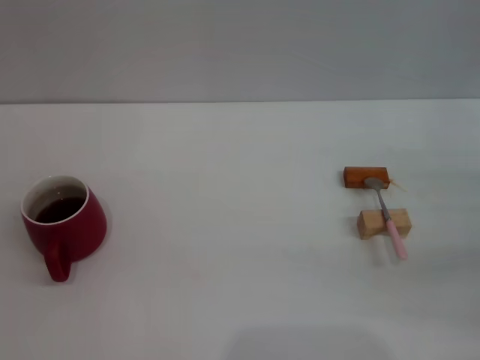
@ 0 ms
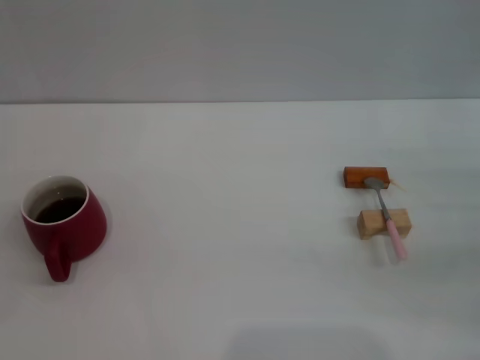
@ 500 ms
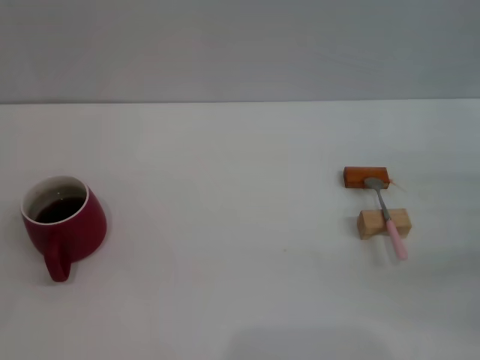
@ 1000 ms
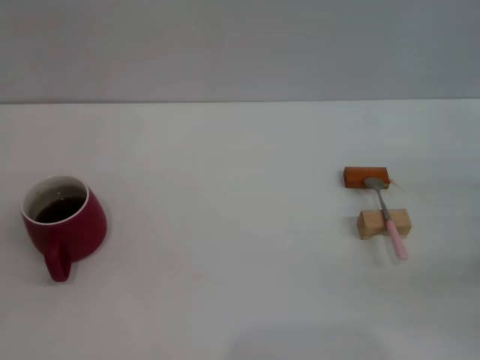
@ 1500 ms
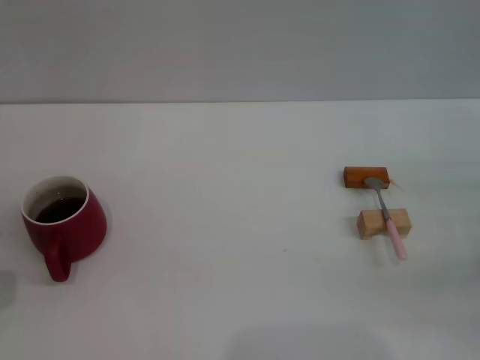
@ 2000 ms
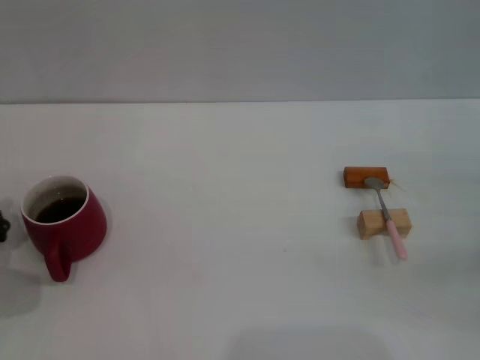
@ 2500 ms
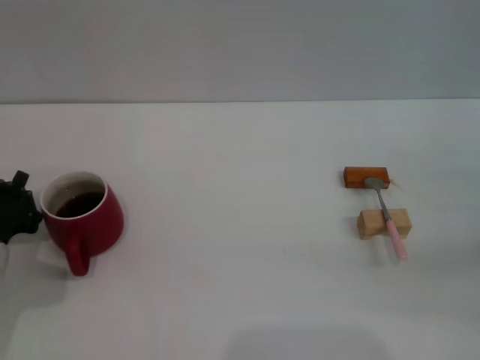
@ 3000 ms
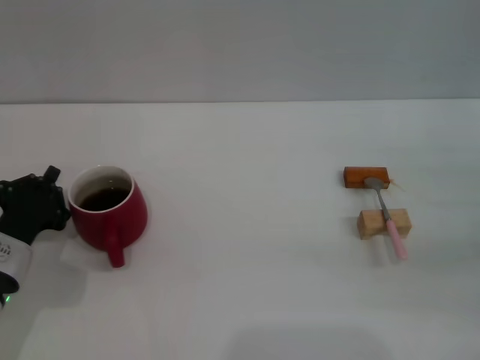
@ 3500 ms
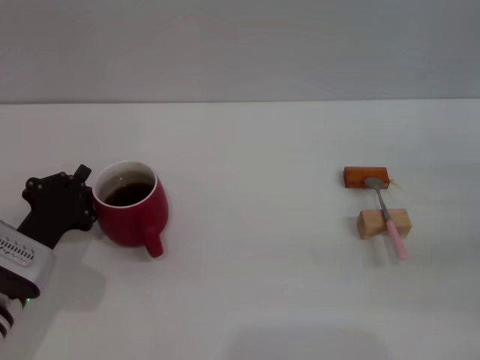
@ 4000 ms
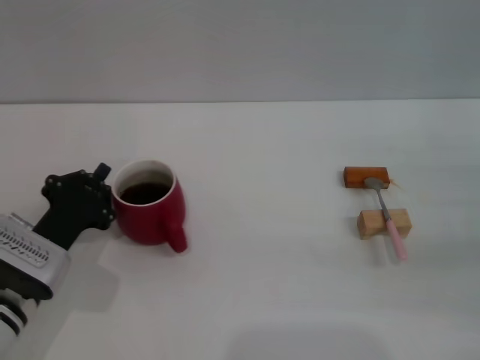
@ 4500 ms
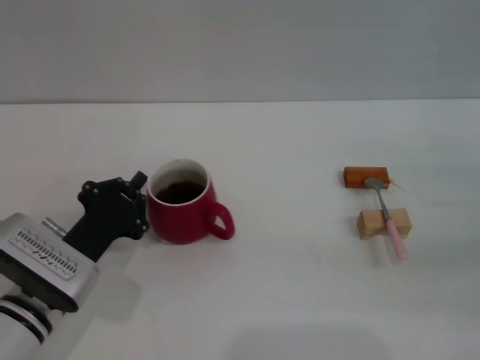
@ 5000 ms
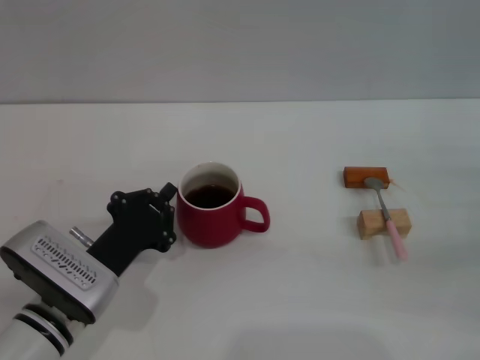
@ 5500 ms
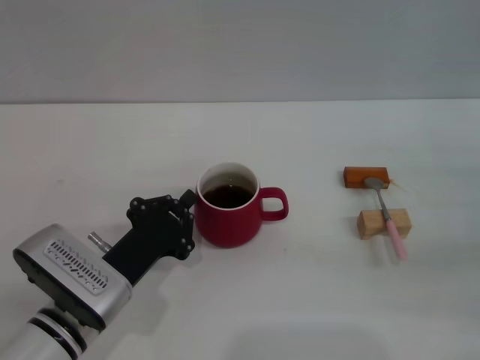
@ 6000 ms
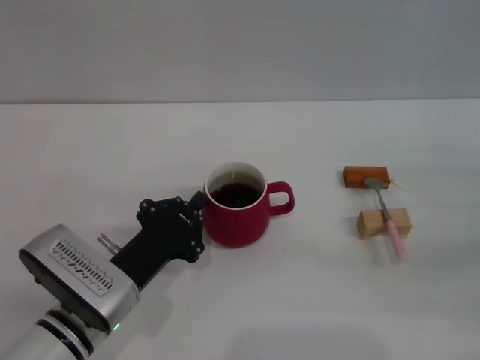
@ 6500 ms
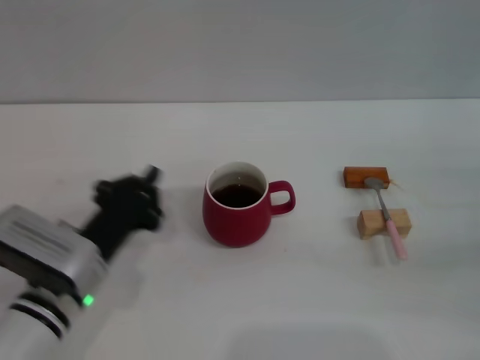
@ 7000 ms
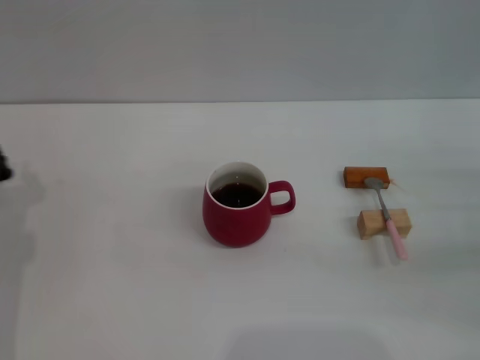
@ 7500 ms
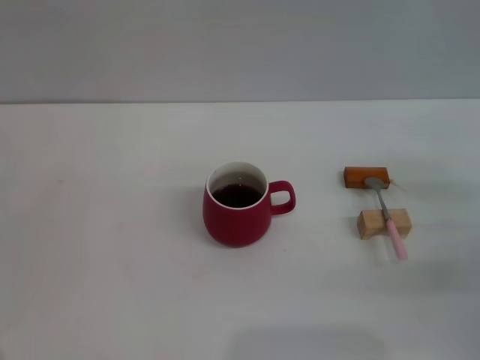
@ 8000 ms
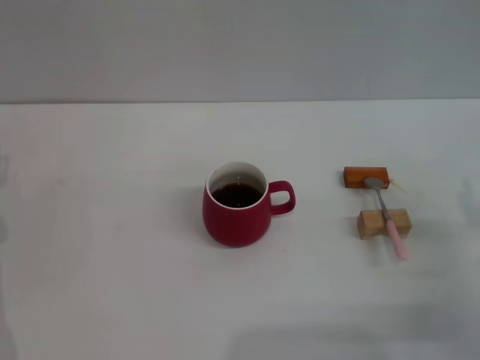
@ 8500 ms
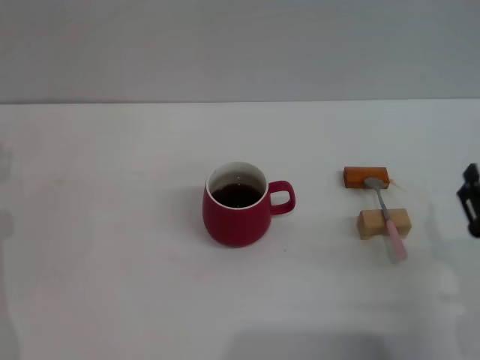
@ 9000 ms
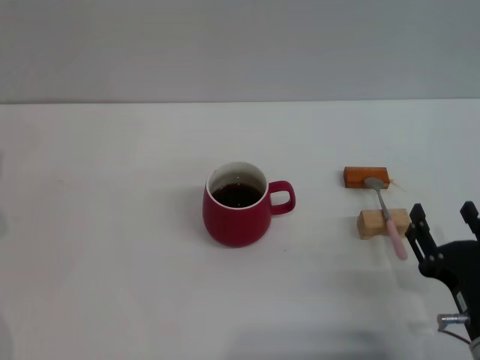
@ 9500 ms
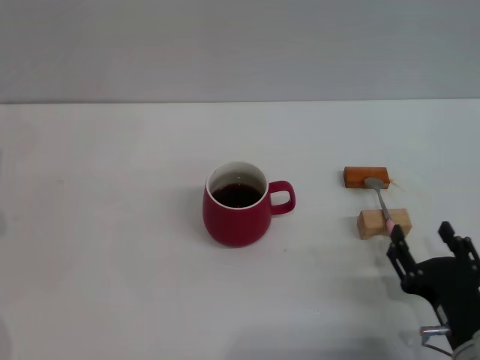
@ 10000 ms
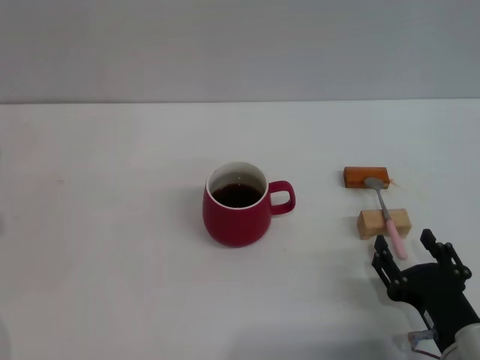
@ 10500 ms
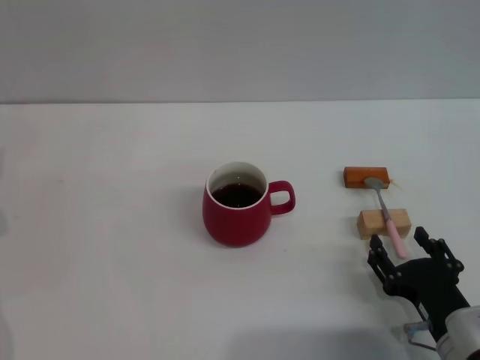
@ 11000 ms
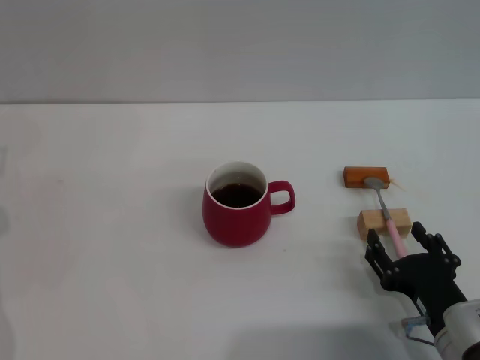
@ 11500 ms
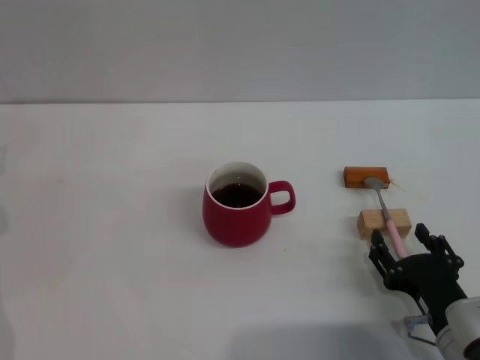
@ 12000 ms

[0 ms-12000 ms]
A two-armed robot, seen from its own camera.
Task of the whole recording: Move the red cup to the center, lift the pink spoon, stir it three times in the cup, and put the spoon into the cup.
Step, 0 ms to 7500 ms: Move the cup with coffee to the center of view with the left gripper.
2000 ms to 4000 ms: The left gripper travels to the right by some 10 cm.
4000 ms to 6000 ms: The left gripper moves to the right, roughly 10 cm.
6000 ms to 8000 ms: The right gripper ends up roughly 5 cm from where it was. Meanwhile the left gripper goes approximately 15 cm to the left, and opens.
8000 ms to 10000 ms: The right gripper shifts approximately 20 cm to the left and backward.
10000 ms to 12000 ms: The grippers move only a little.

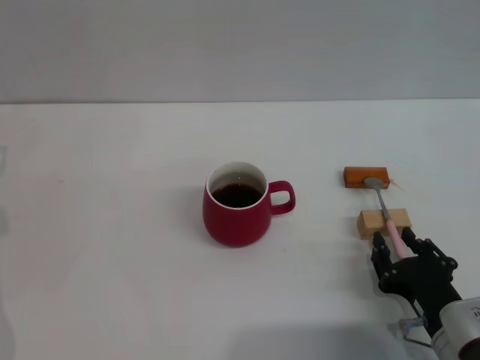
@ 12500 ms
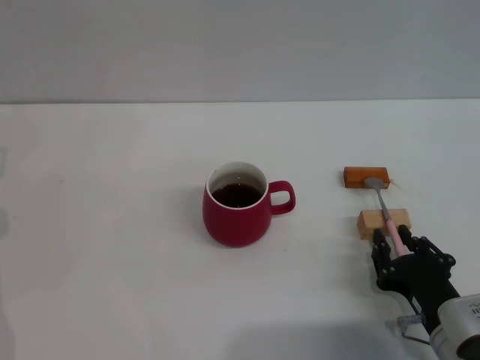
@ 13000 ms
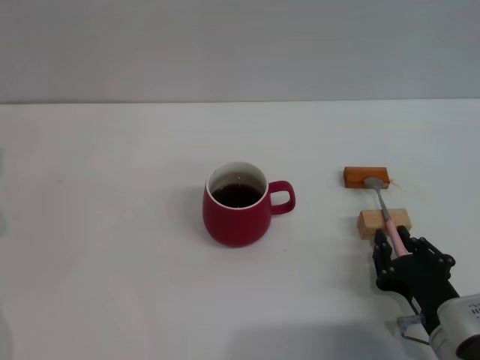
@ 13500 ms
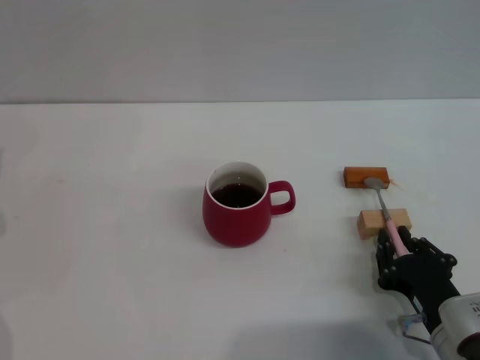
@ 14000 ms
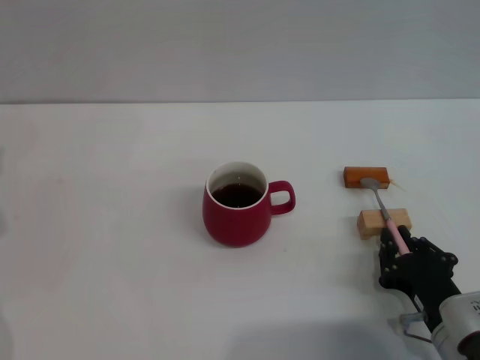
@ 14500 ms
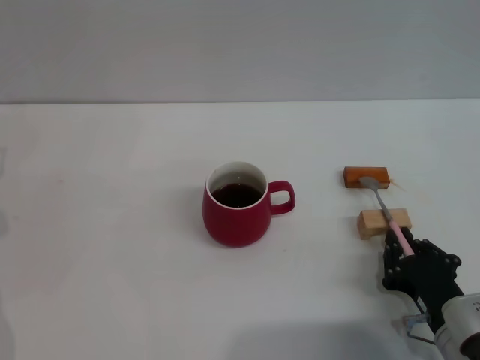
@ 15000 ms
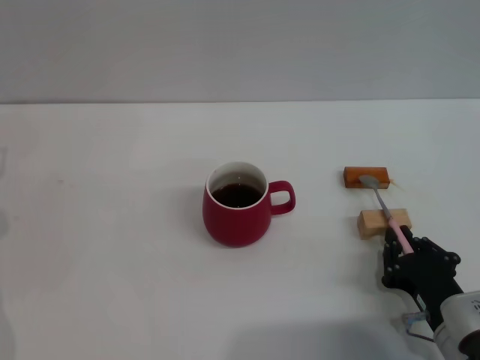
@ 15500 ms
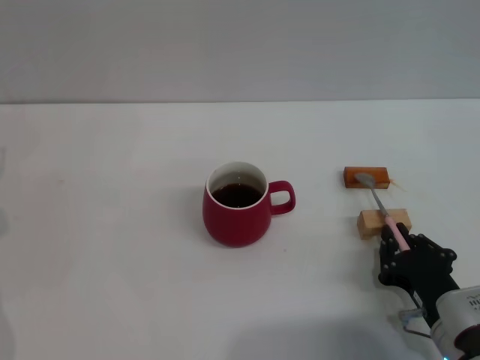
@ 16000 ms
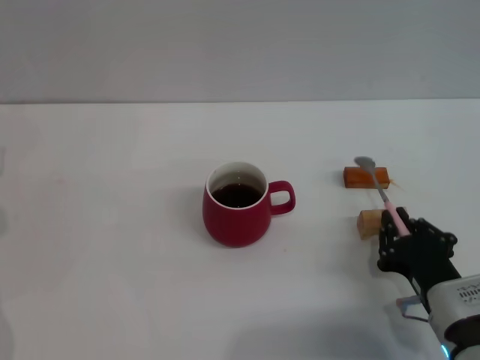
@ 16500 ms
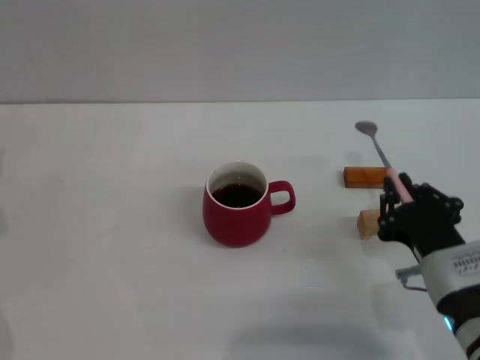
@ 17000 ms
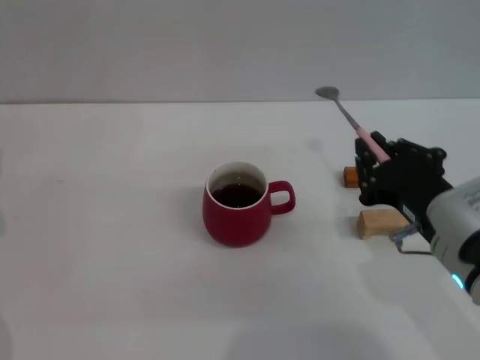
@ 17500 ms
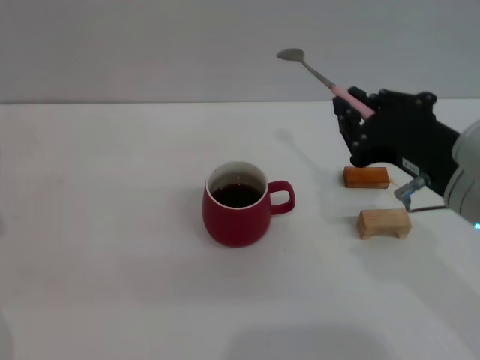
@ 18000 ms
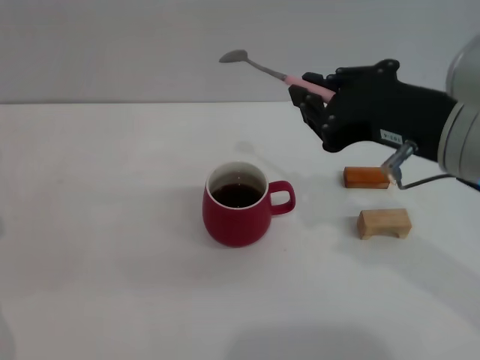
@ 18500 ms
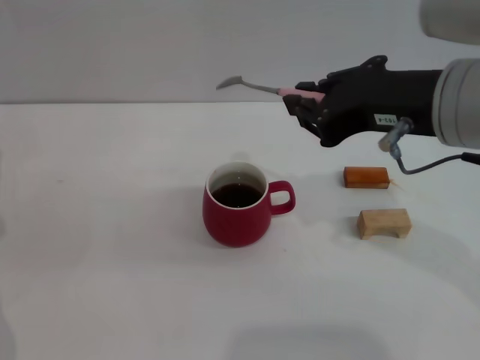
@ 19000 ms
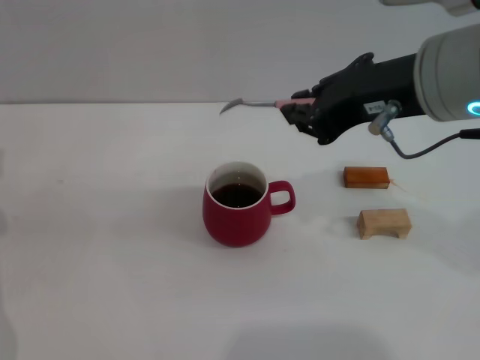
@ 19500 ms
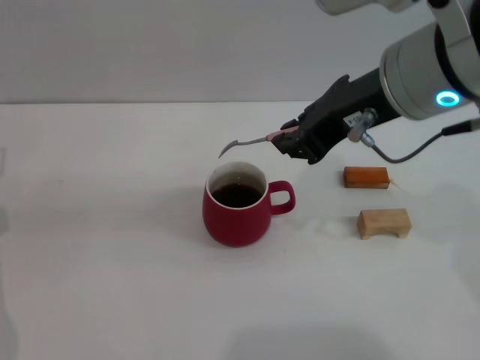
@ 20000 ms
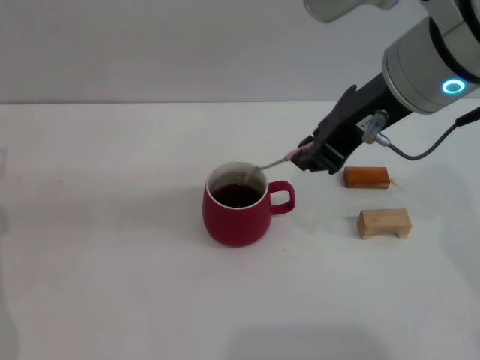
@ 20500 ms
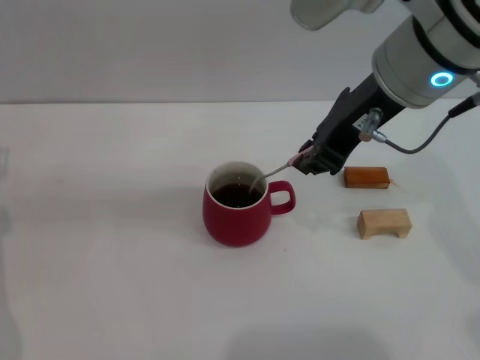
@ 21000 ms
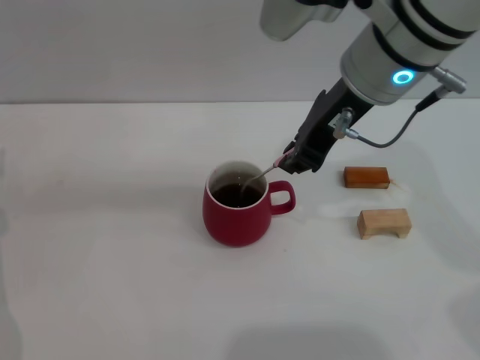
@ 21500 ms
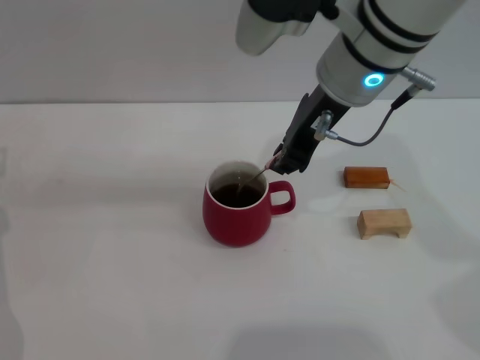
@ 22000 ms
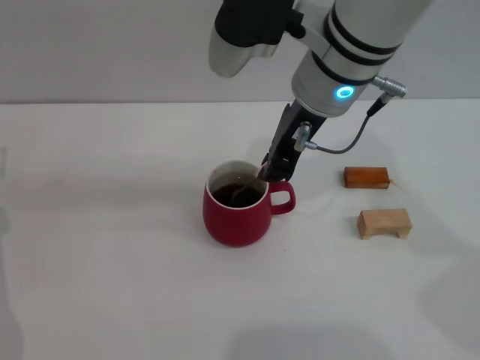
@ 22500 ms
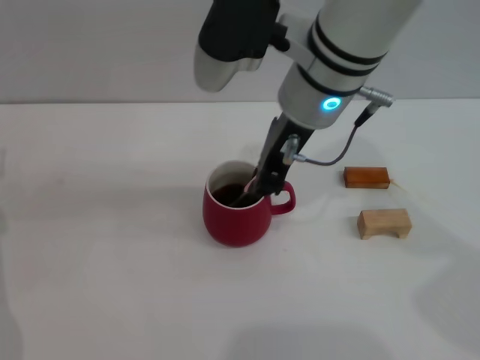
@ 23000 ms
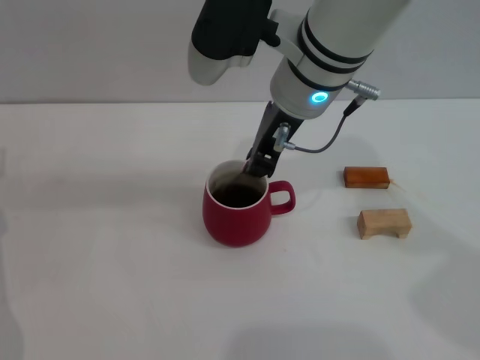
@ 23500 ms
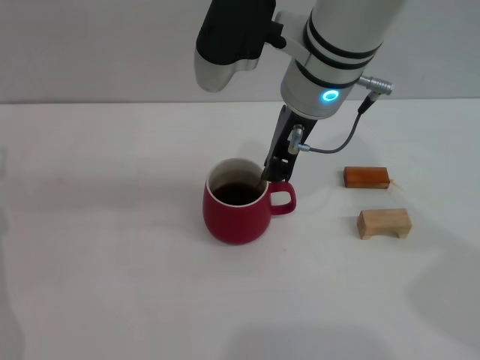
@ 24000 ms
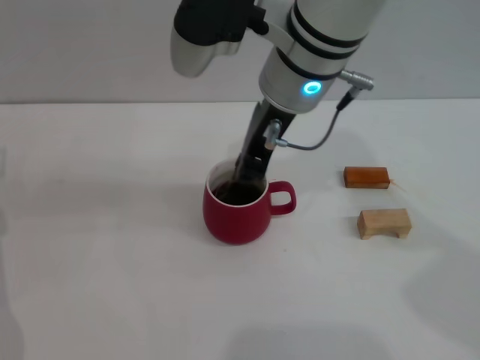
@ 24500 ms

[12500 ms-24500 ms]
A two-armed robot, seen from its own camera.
Task of the whole recording: Move the red cup to the center, lift the pink spoon, stir it three times in the cup, and put the spoon into the cup.
Step, 12500 ms to 17000 ms: Pick up the spoon with the right gripper.
12500 ms to 14500 ms: The right gripper closes.
14500 ms to 16500 ms: The grippers make only small movements.
16500 ms to 18500 ms: The right gripper heads upward, covering roughly 25 cm.
18500 ms to 20500 ms: The right gripper shifts roughly 5 cm forward.
20500 ms to 22500 ms: The right gripper shifts some 10 cm forward and to the left.
22500 ms to 24500 ms: The grippers move only a little.

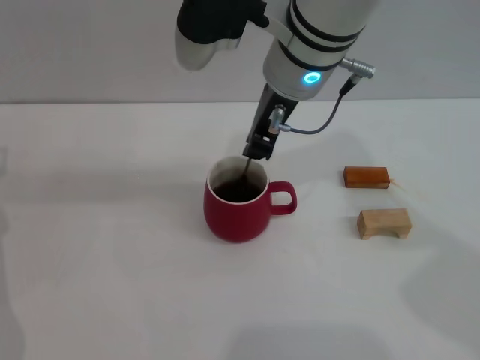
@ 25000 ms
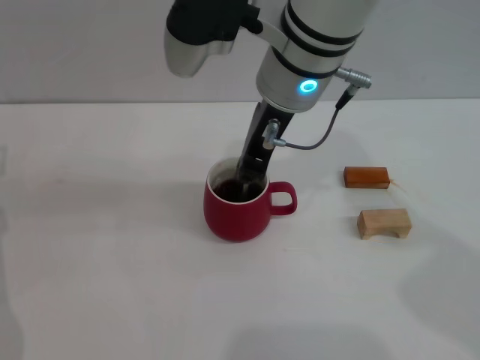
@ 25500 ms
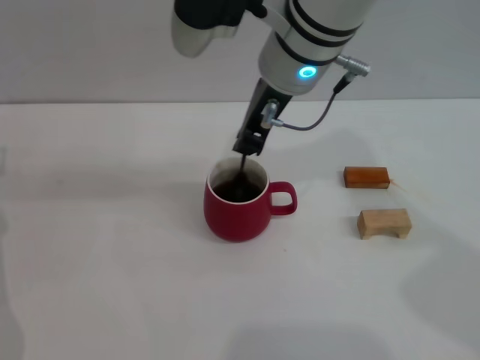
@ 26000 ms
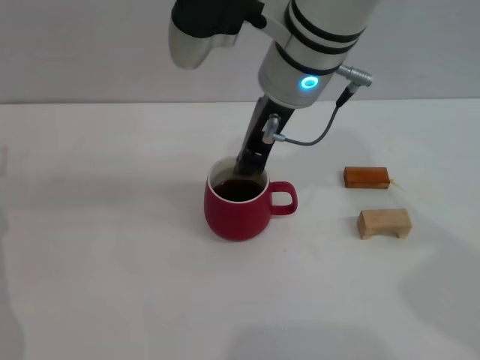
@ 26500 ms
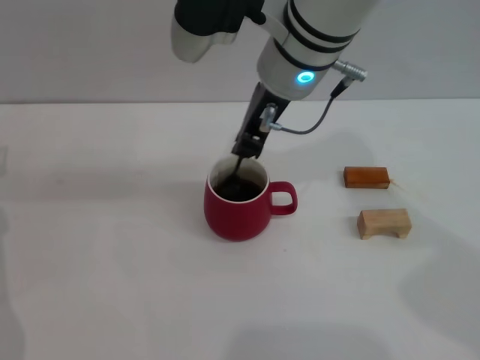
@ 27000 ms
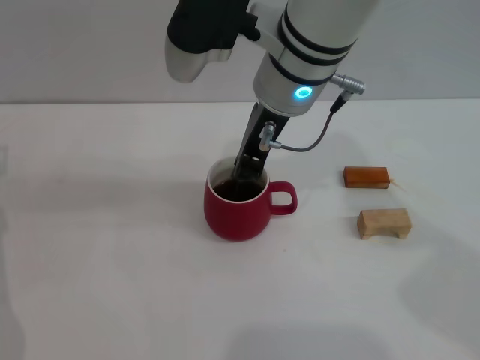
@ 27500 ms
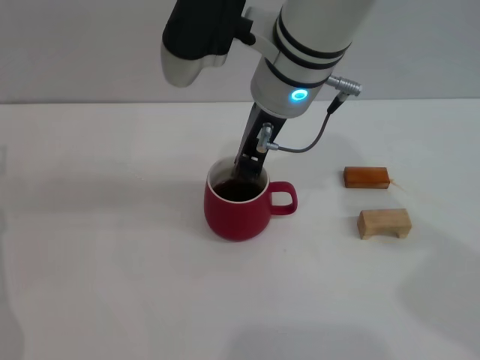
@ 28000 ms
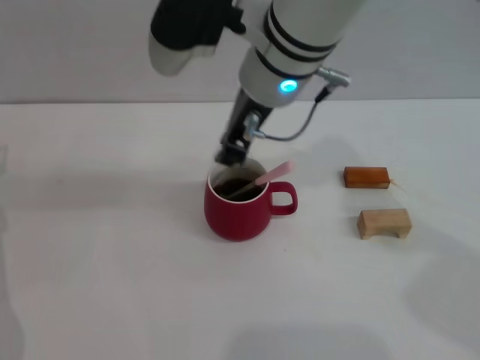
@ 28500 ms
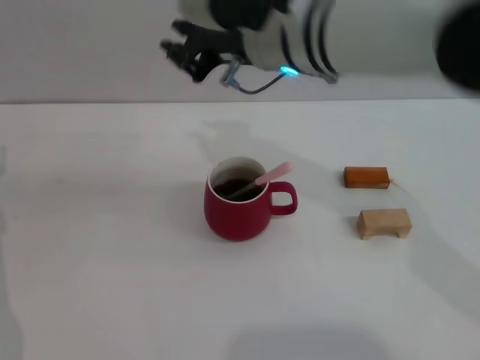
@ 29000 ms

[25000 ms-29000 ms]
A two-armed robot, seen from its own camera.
Task of the whole recording: Move the red cup to the center, lift the pink spoon, stir it three times in the cup, and put the spoon into the cup.
Step, 25000 ms to 28500 ms: Stir the coffee in the cup with the right gripper.
25000 ms to 27000 ms: There are only small adjustments of the grippers.
